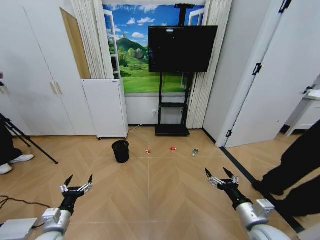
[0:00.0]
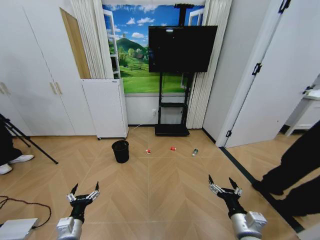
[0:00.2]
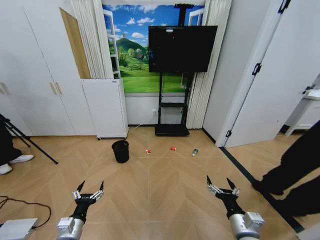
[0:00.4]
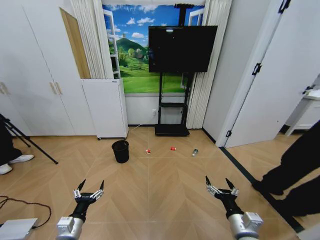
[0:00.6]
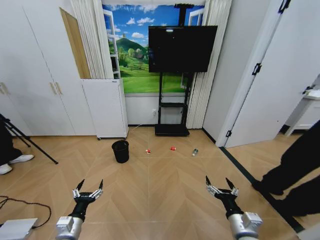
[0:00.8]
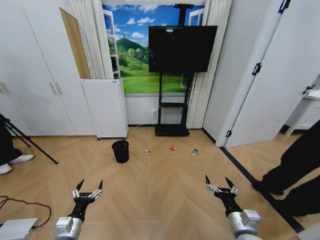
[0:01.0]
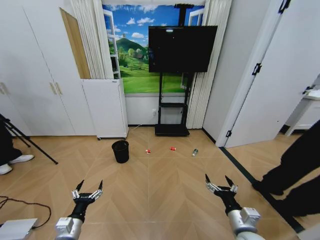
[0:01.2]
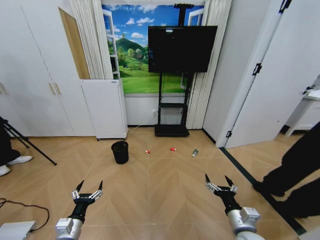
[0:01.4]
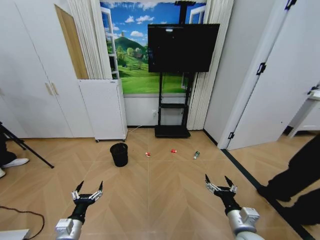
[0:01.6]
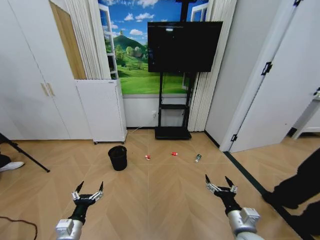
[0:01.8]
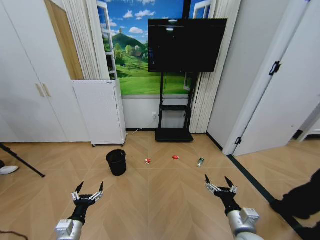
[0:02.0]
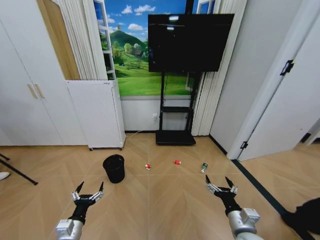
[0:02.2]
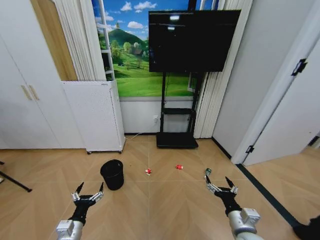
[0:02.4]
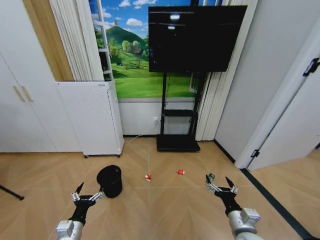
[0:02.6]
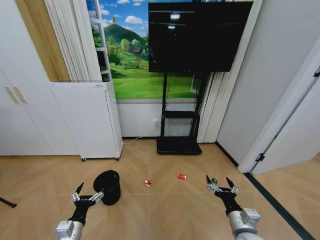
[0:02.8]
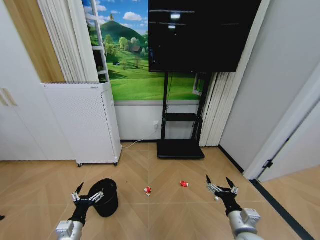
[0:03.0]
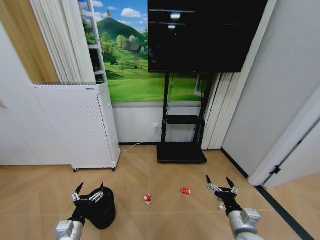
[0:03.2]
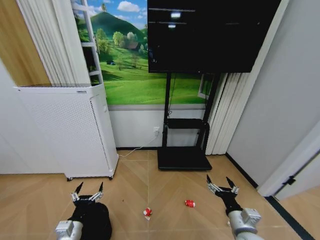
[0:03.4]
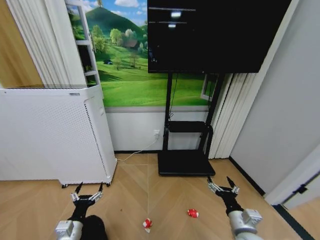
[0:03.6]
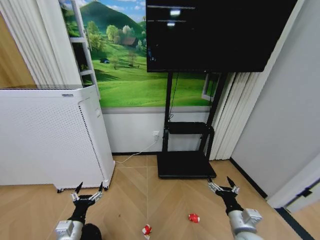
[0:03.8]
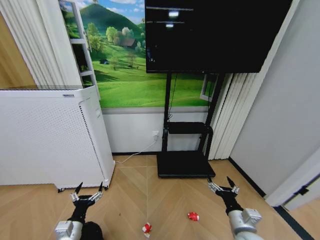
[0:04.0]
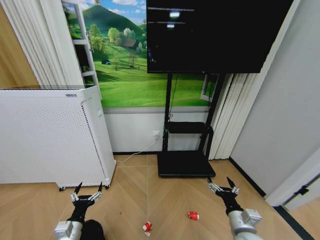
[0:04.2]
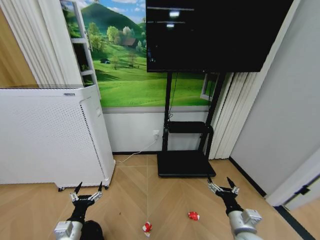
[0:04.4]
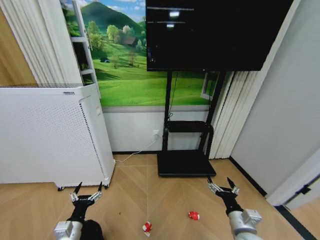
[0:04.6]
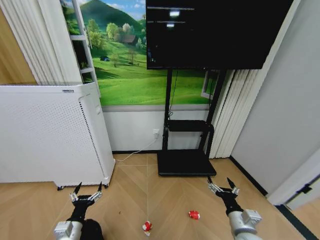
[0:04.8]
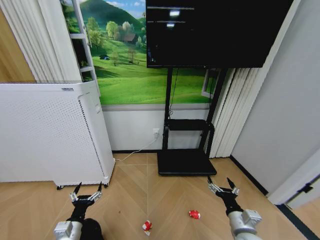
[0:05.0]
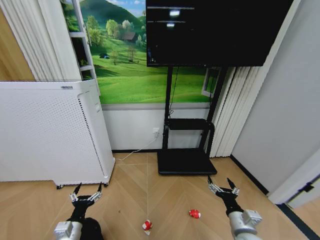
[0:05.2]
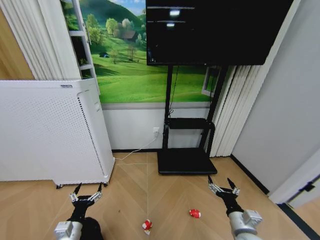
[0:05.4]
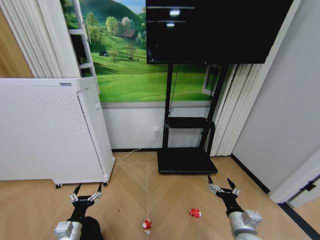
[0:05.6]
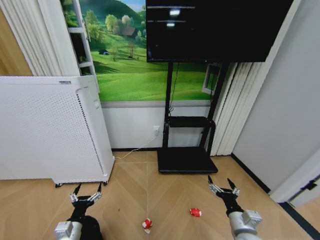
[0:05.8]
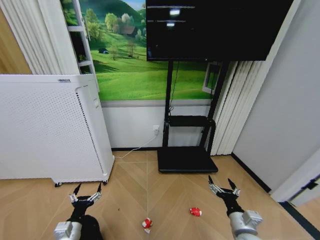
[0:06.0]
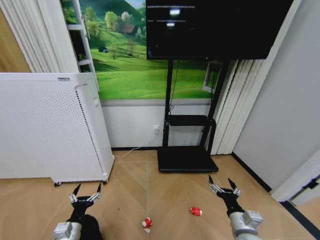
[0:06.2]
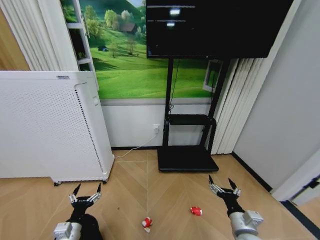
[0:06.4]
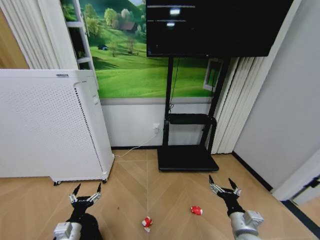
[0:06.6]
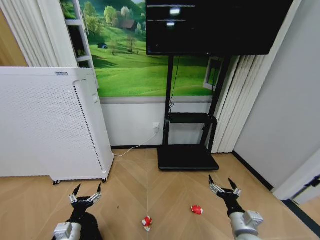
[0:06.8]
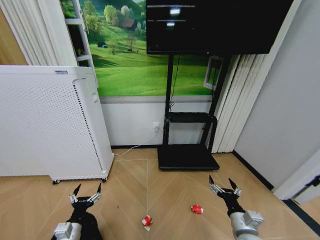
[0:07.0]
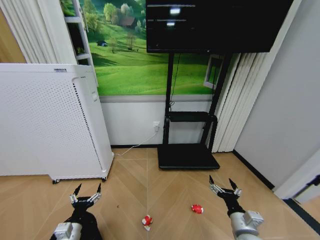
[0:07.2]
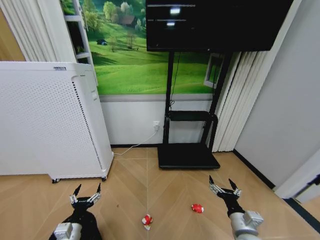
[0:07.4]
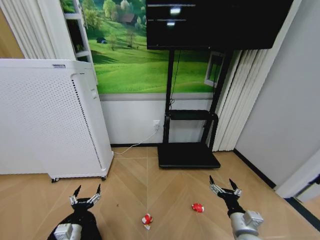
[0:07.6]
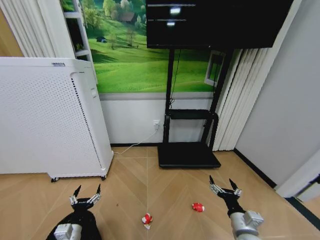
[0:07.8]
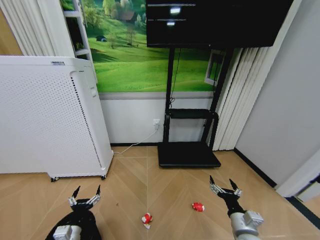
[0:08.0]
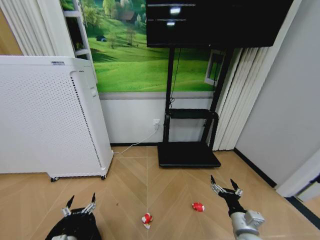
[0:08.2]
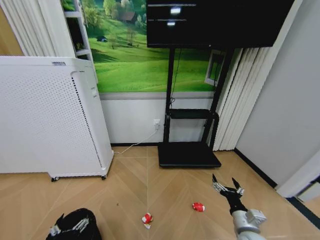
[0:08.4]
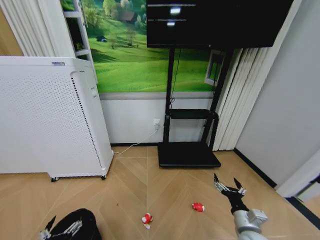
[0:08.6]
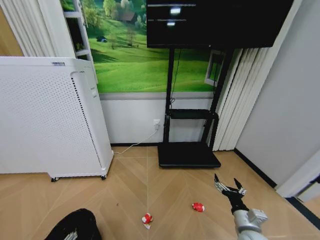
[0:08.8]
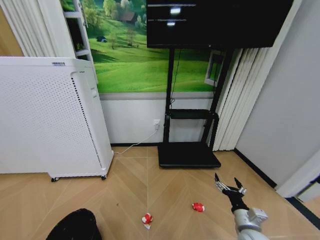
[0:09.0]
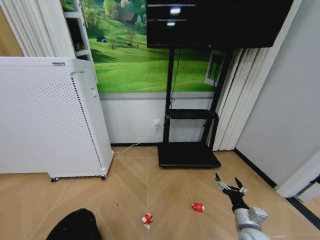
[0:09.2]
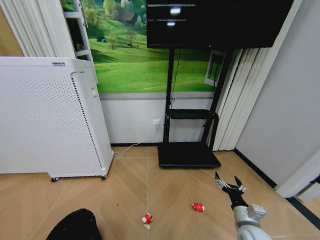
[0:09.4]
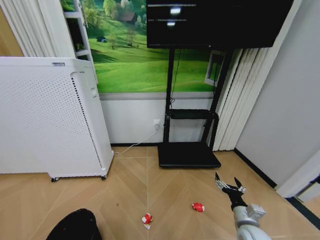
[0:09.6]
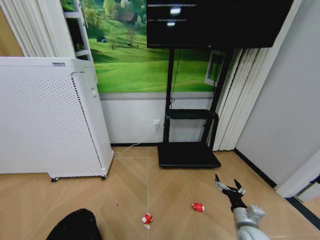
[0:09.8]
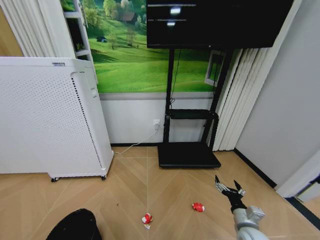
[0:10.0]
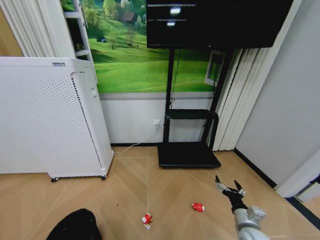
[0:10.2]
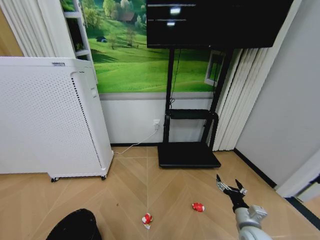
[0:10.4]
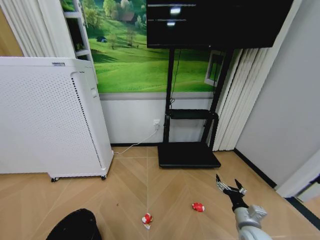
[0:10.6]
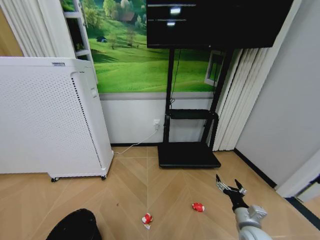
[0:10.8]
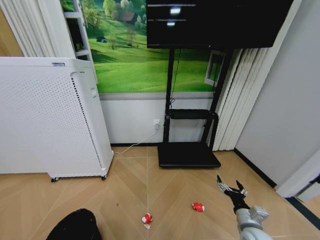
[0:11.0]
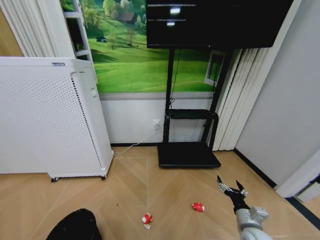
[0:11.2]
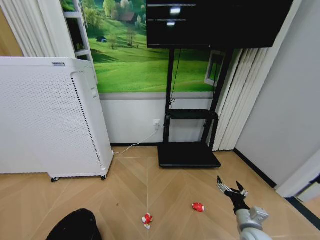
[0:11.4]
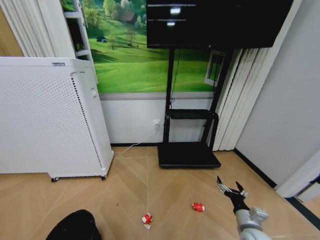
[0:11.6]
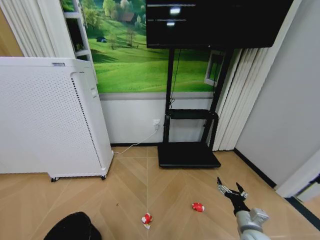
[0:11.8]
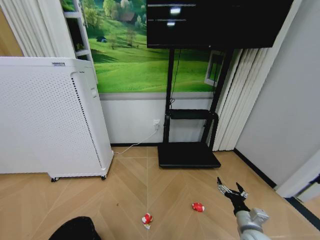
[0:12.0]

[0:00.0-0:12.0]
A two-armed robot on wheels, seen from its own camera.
Task of the whole recording: Pick up the trash bin and place the garbage on the floor into it.
0:04.4 to 0:06.0: Both grippers stay put.
0:06.0 to 0:07.6: Both grippers stay put.
0:07.6 to 0:09.0: The left gripper is displaced backward by some 15 cm.
0:10.4 to 0:12.0: The left gripper closes its fingers.

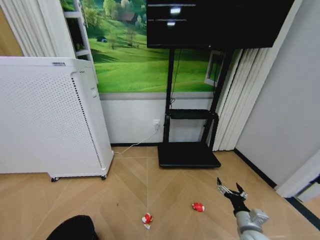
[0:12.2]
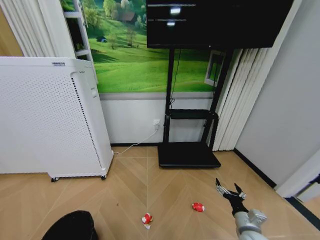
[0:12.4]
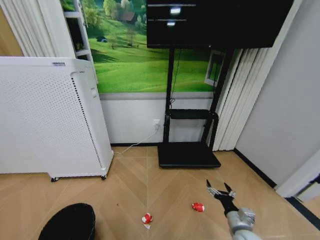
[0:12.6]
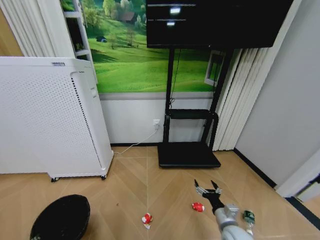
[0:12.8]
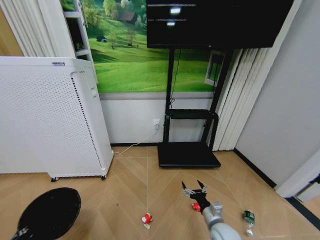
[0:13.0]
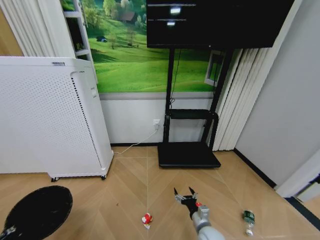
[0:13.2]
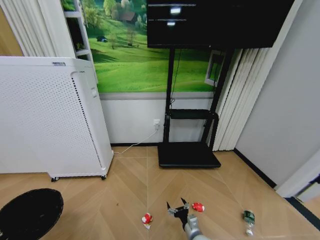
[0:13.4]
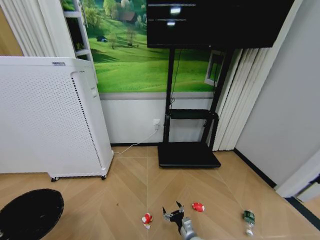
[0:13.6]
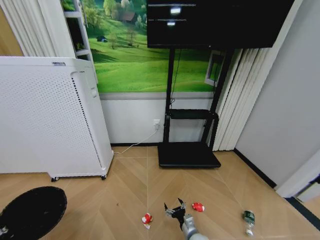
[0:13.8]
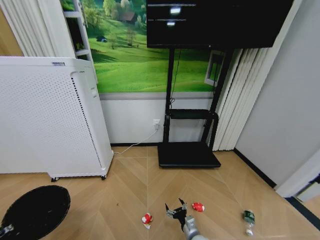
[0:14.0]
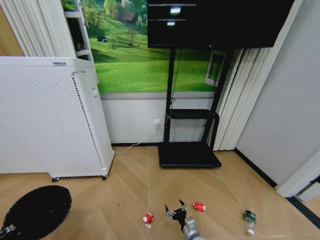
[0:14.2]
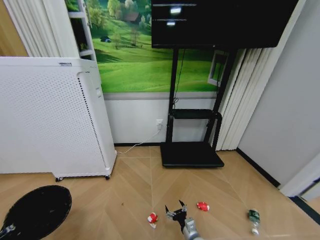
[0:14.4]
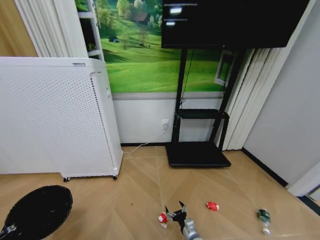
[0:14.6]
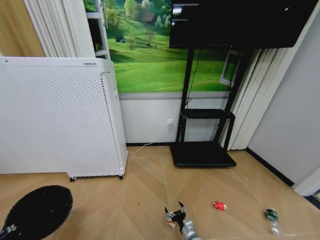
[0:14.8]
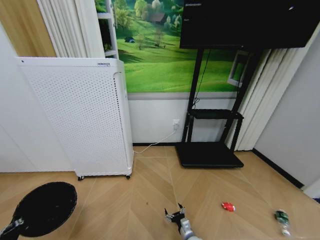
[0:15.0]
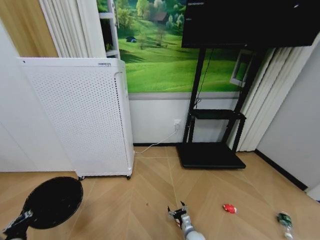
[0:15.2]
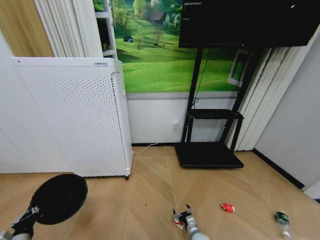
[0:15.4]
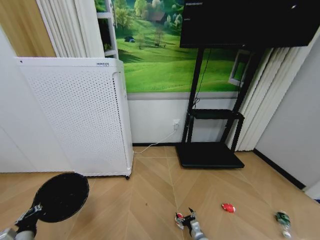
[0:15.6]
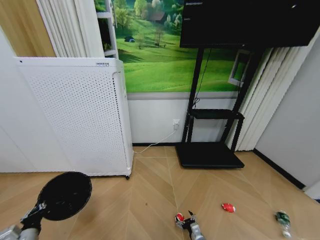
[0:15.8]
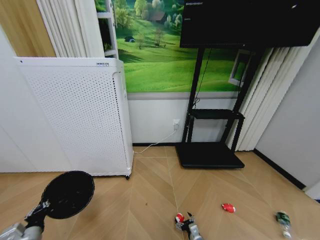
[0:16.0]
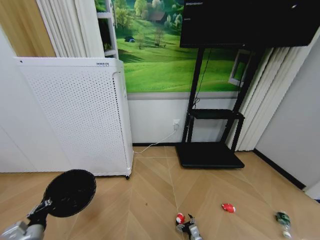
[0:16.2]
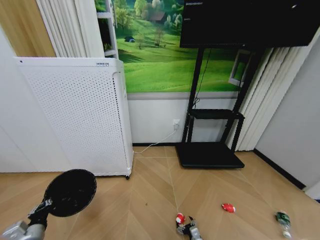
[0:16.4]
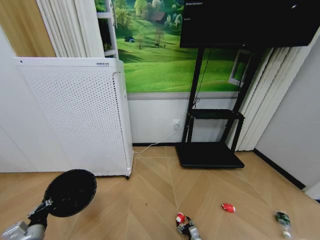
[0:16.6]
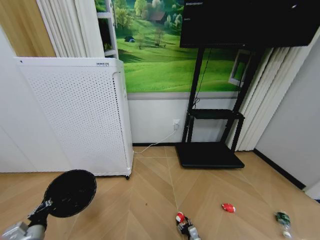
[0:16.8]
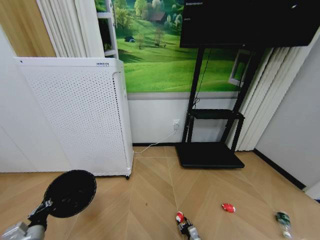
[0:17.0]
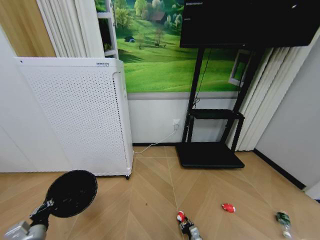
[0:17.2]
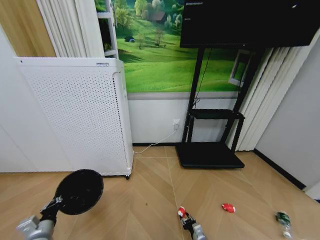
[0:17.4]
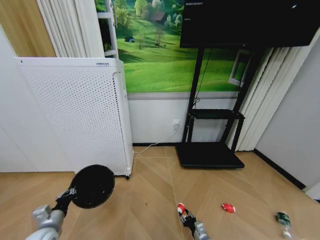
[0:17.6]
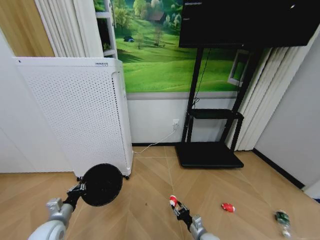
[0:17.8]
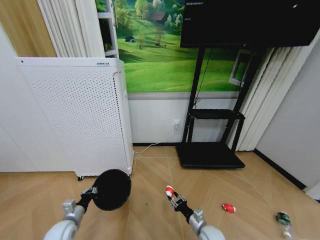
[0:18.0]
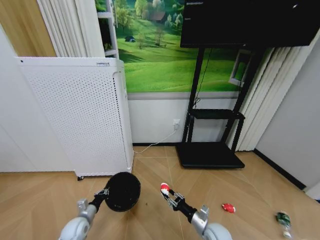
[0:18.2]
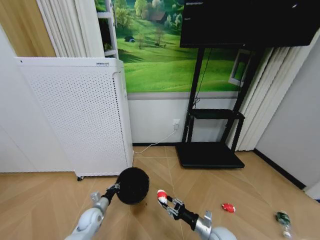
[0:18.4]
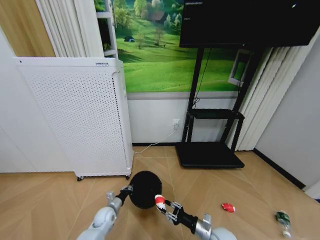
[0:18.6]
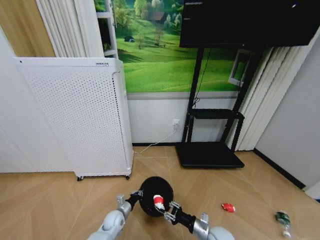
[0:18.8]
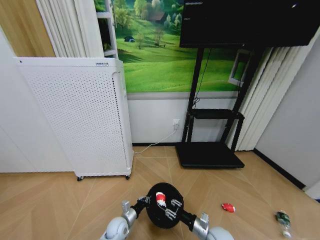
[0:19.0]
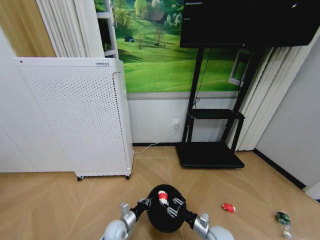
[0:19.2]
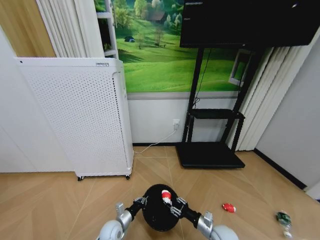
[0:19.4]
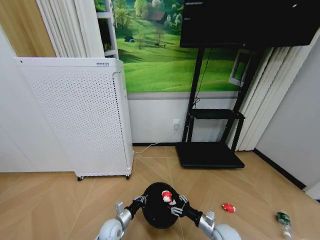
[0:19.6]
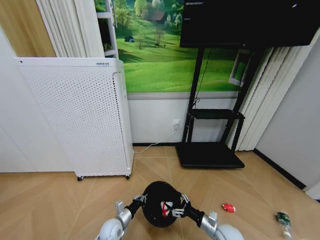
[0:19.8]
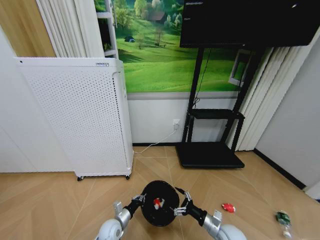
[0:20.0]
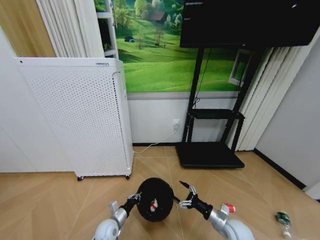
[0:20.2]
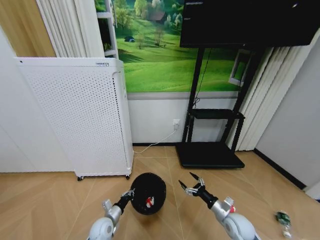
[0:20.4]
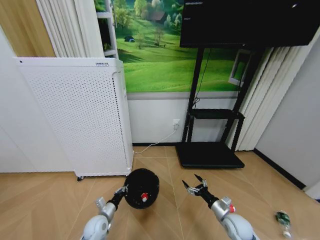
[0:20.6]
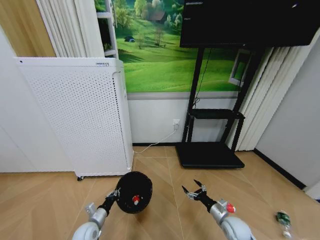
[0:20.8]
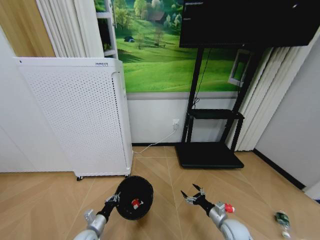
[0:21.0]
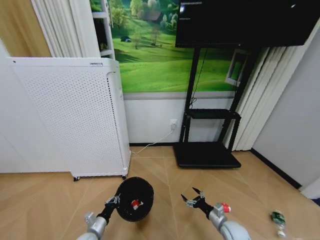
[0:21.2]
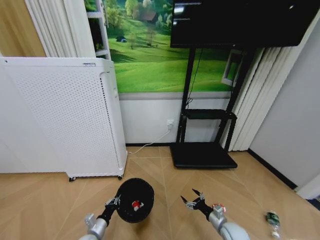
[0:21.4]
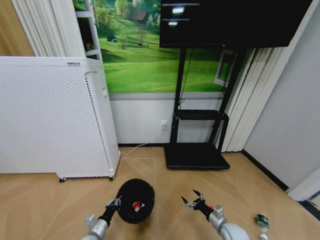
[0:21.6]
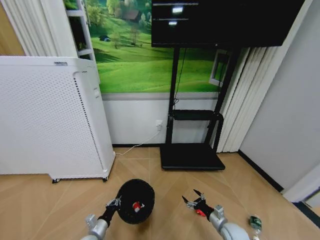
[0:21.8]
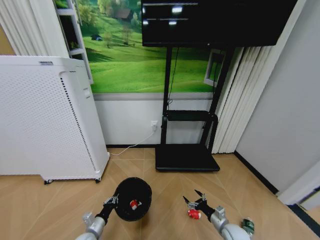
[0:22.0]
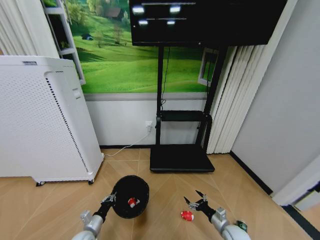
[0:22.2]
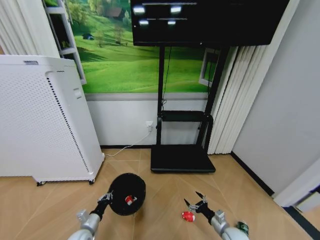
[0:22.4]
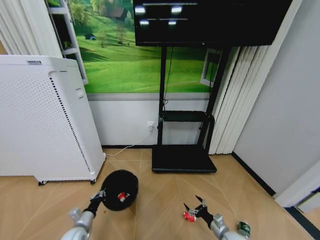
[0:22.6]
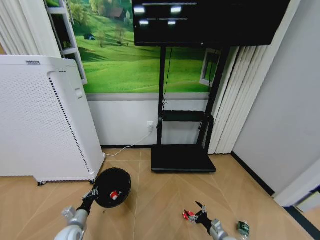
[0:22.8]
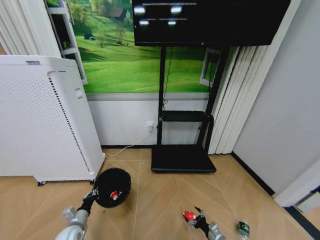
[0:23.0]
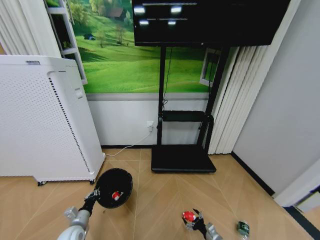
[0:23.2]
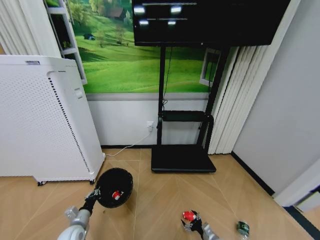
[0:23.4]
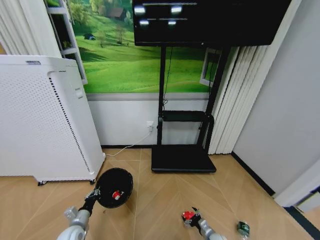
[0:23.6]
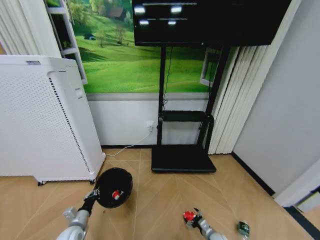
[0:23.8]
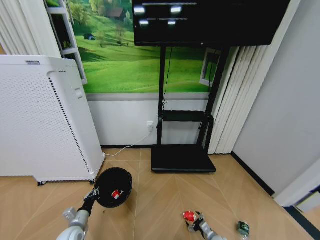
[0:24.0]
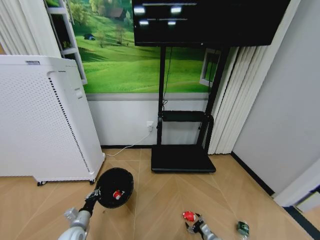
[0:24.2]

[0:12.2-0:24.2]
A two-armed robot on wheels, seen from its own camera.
Task of the whole recording: Pick up the trash bin and place the garbage on the floor into it.
0:12.2 to 0:13.8: The right gripper is displaced to the left and downward by roughly 20 cm. The left gripper goes approximately 15 cm to the left, forward and upward.
0:15.2 to 0:16.6: The left gripper is displaced forward by about 5 cm. Meanwhile the right gripper is displaced downward and to the right by approximately 10 cm.
0:16.6 to 0:18.2: The right gripper moves upward, approximately 20 cm, and closes, while the left gripper moves forward, downward and to the right, about 15 cm.
0:18.2 to 0:19.8: The left gripper moves to the right, approximately 15 cm, while the right gripper opens up.
0:19.8 to 0:21.2: The right gripper changes place by some 5 cm. The left gripper travels to the left and backward by about 10 cm.
0:21.2 to 0:22.6: The right gripper changes place by approximately 5 cm. The left gripper shifts by approximately 5 cm.
0:22.6 to 0:24.2: The right gripper is displaced downward by approximately 10 cm.
